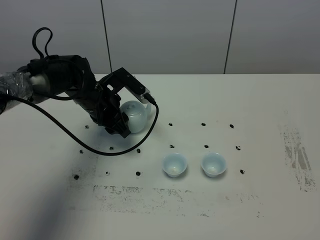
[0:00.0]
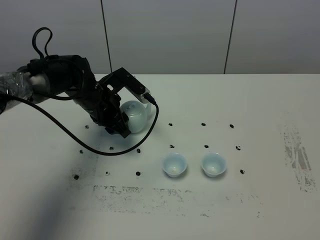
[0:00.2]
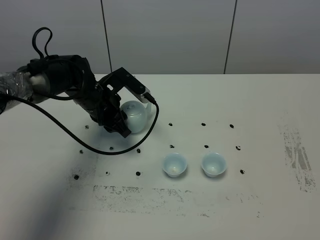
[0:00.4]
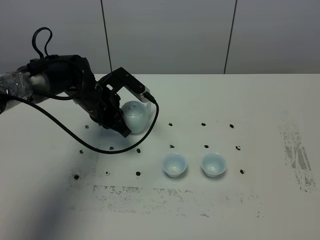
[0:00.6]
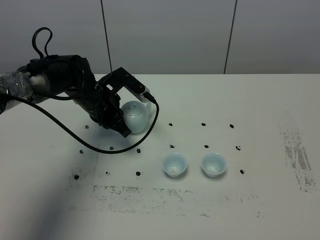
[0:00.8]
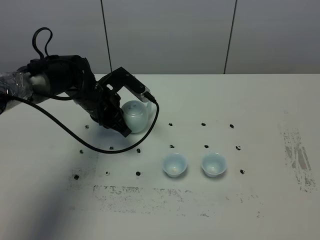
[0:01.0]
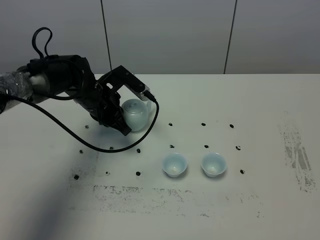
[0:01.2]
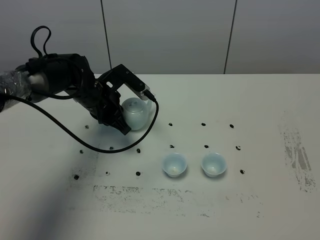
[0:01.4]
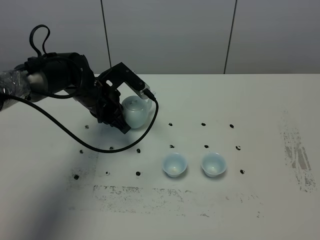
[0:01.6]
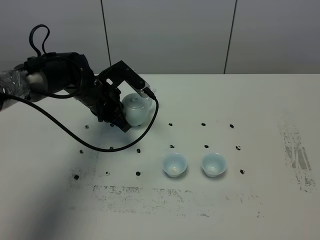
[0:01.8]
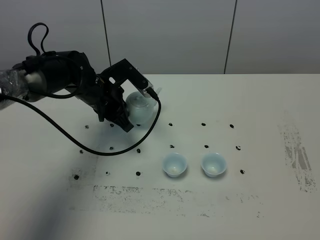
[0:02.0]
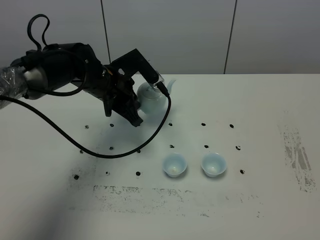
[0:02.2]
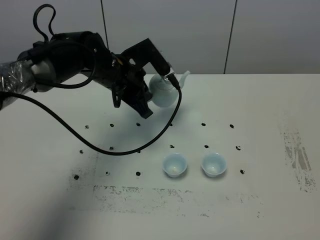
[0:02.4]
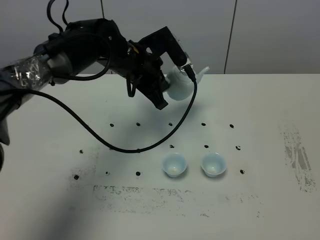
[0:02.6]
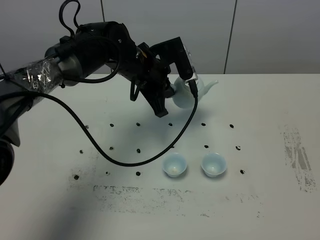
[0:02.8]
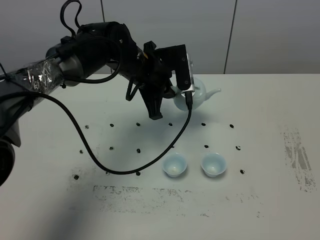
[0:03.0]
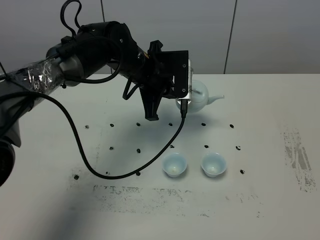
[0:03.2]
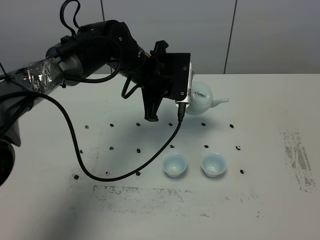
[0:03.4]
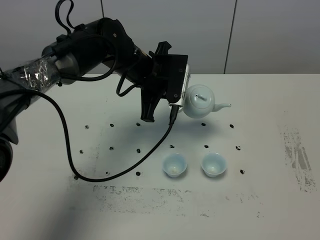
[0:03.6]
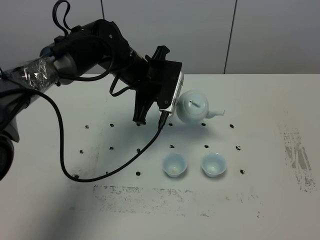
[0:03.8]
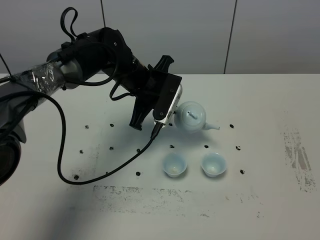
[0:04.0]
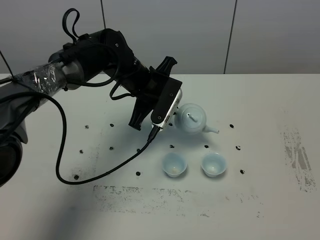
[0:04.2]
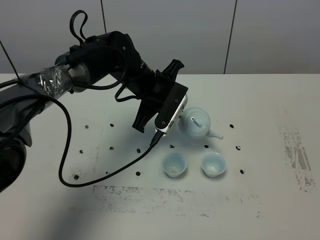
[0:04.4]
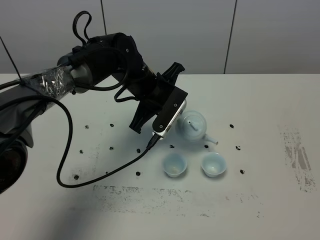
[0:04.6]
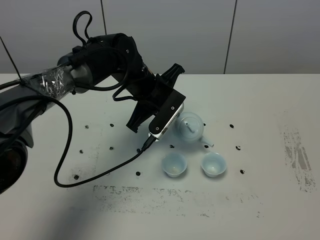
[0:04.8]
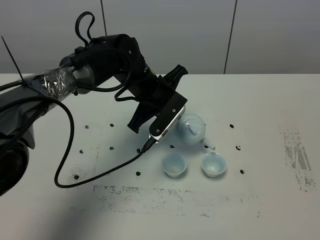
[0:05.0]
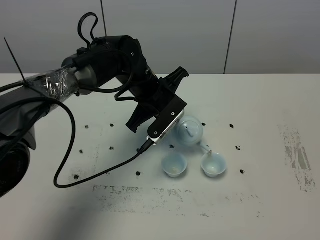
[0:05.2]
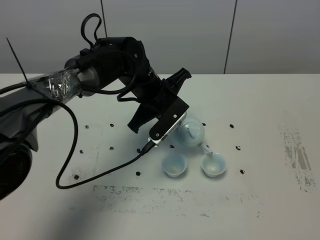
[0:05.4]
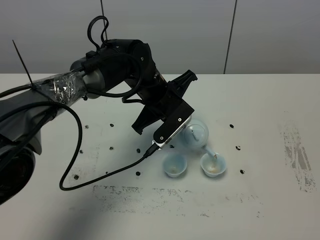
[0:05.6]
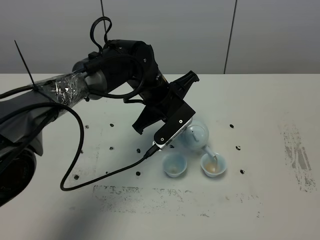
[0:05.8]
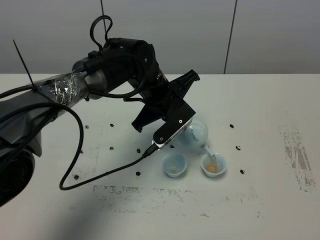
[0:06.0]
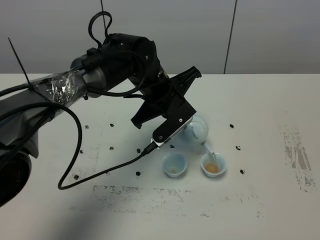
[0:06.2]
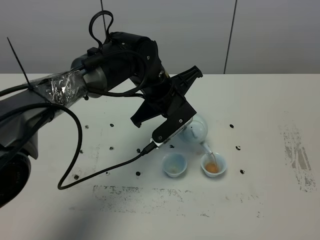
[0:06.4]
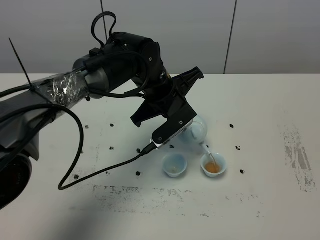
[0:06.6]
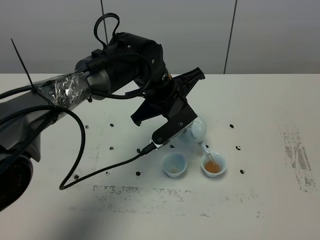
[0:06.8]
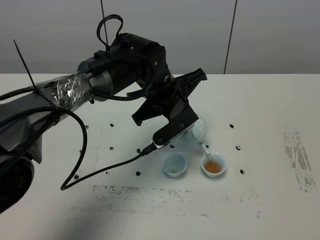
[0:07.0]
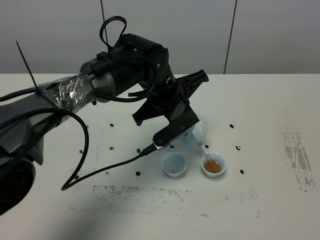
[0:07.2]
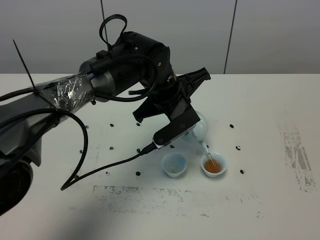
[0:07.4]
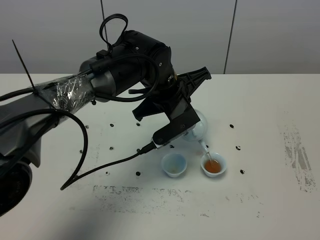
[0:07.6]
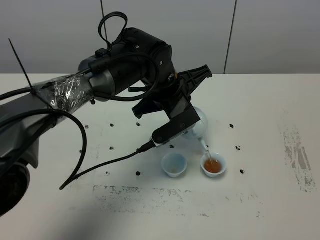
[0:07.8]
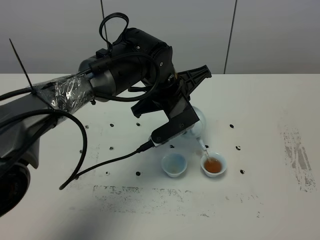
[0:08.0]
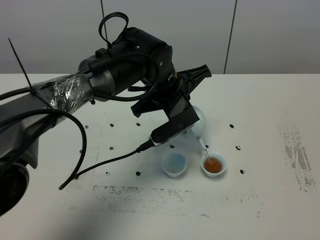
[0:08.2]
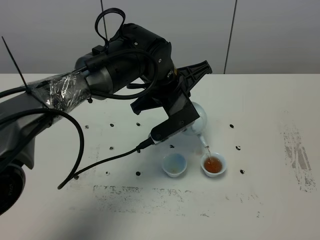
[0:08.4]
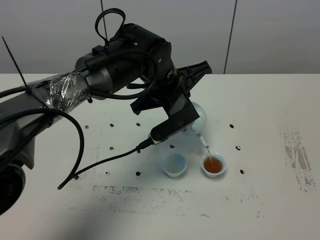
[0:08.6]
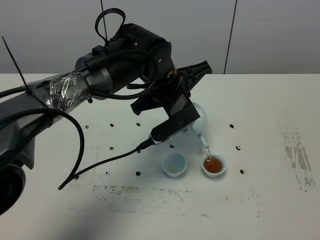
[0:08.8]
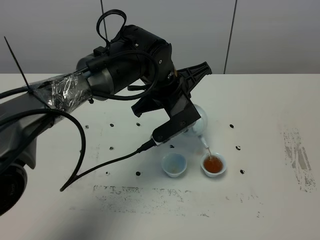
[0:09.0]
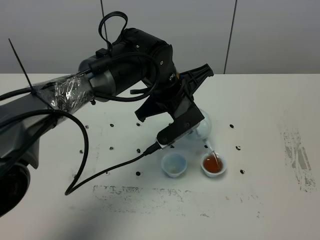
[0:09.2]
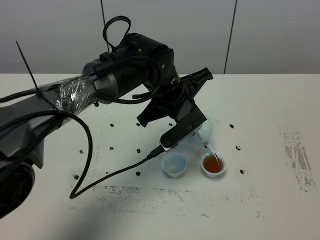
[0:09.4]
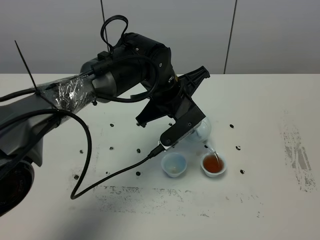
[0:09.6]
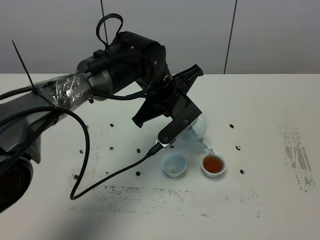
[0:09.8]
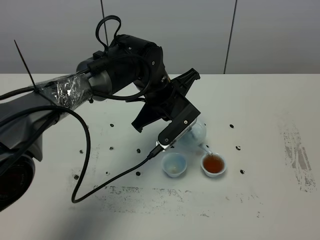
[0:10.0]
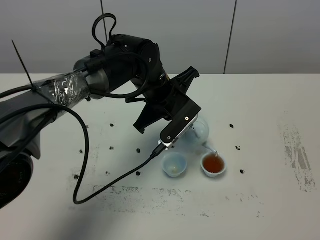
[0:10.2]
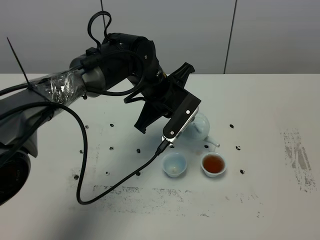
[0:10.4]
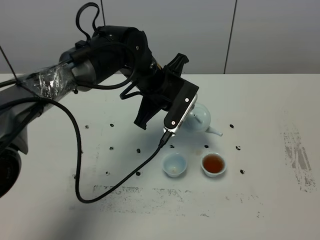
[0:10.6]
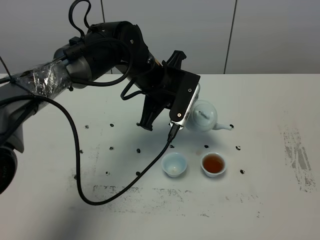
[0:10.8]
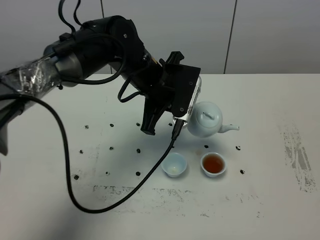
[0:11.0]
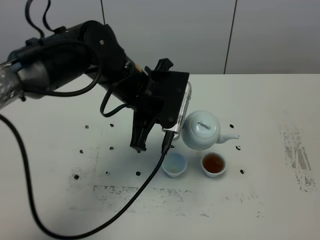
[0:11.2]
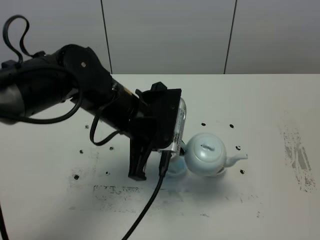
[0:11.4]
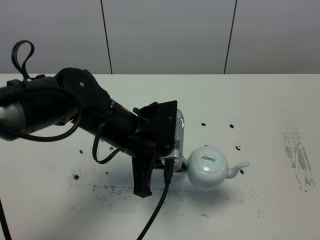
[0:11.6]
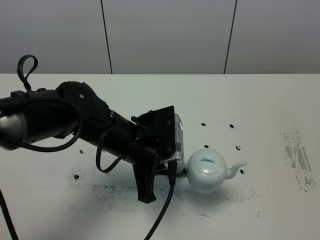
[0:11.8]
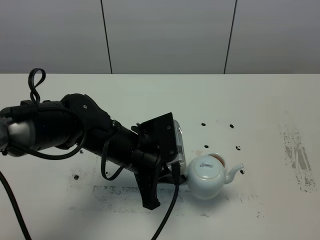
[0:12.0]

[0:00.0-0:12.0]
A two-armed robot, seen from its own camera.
Task of the whole recording: grasp the blue porcelain teapot and pour the tea into the two blue porcelain teacups one by one, put the blue porcelain teapot back in its original place.
0:00.0 to 0:01.6: The left gripper closes its fingers.
0:01.6 to 0:03.0: The left gripper heads to the right and upward, covering about 10 cm.
0:06.0 to 0:07.6: The grippers make only small movements.
0:07.6 to 0:09.0: Both grippers stay about where they are.
0:10.4 to 0:12.0: The left gripper shifts about 15 cm backward.

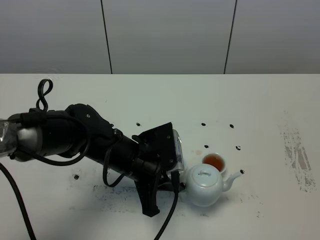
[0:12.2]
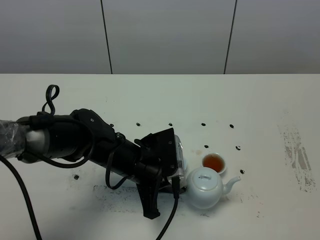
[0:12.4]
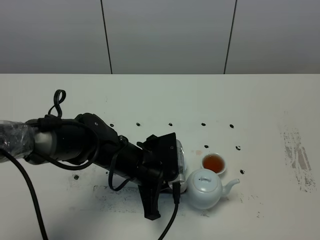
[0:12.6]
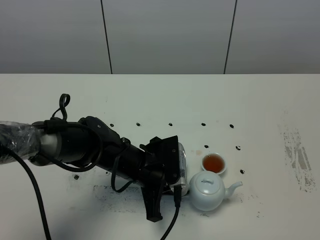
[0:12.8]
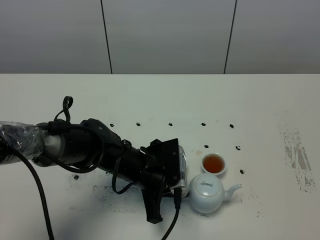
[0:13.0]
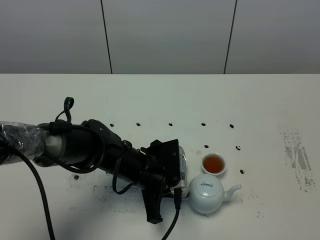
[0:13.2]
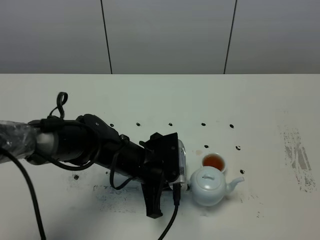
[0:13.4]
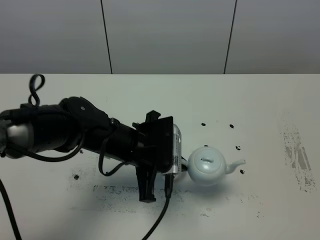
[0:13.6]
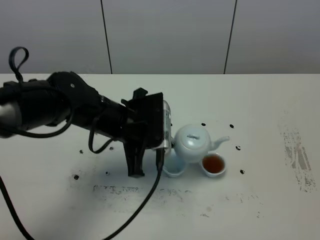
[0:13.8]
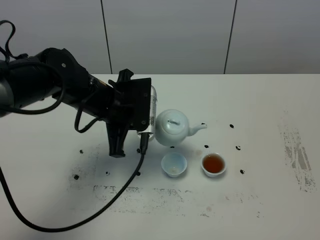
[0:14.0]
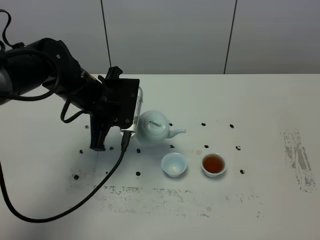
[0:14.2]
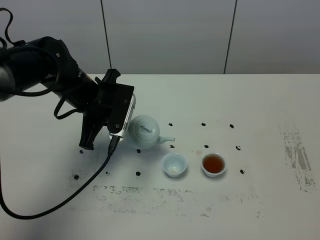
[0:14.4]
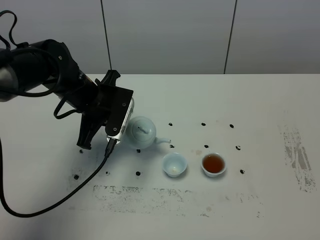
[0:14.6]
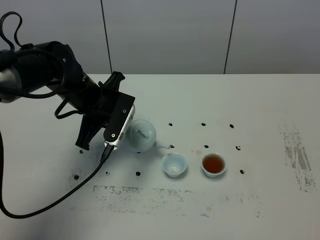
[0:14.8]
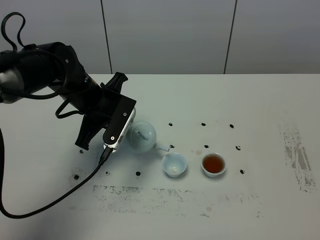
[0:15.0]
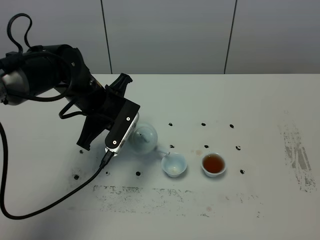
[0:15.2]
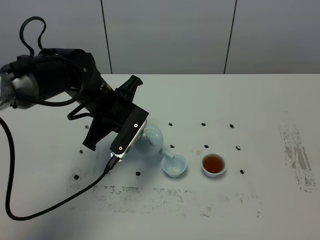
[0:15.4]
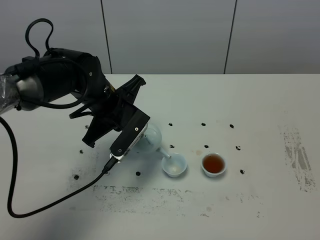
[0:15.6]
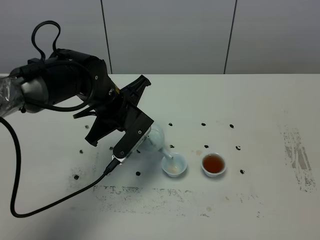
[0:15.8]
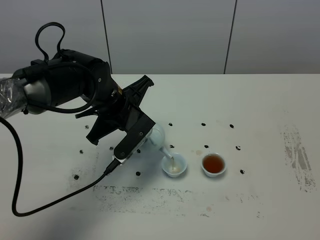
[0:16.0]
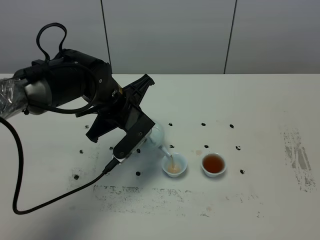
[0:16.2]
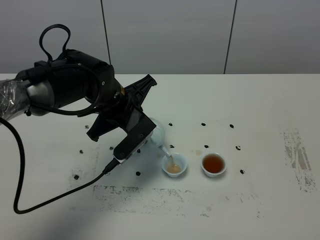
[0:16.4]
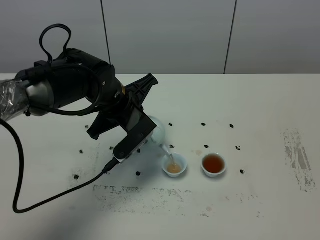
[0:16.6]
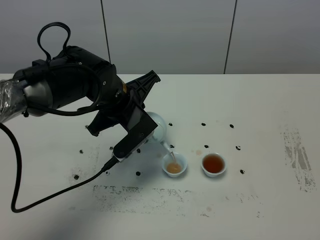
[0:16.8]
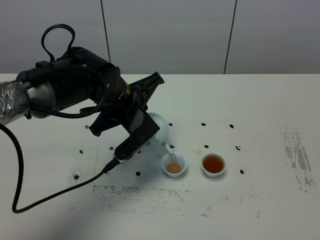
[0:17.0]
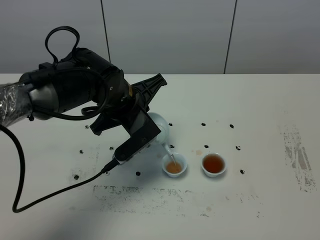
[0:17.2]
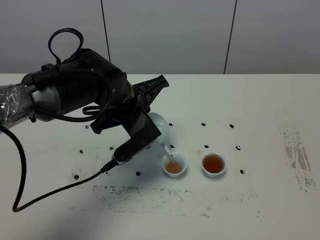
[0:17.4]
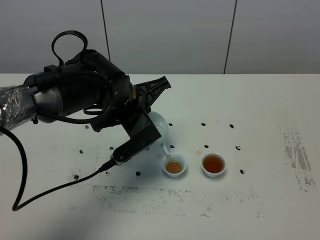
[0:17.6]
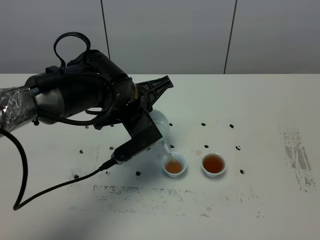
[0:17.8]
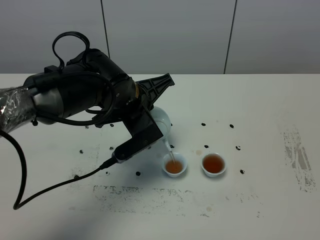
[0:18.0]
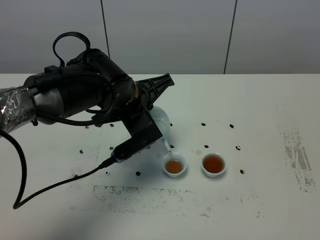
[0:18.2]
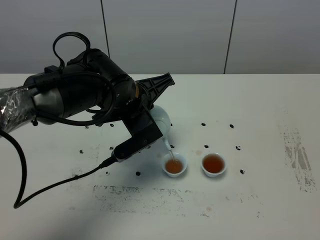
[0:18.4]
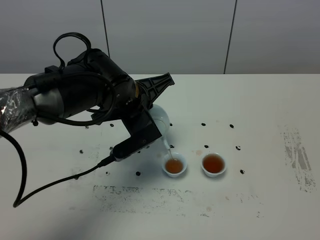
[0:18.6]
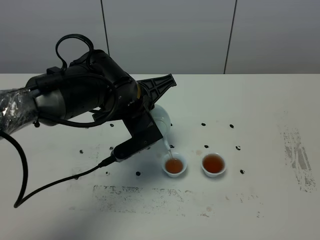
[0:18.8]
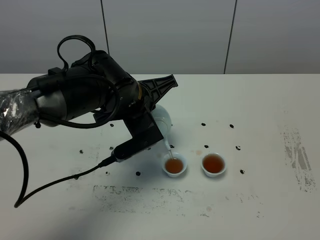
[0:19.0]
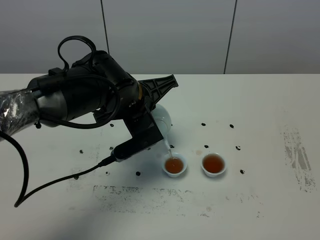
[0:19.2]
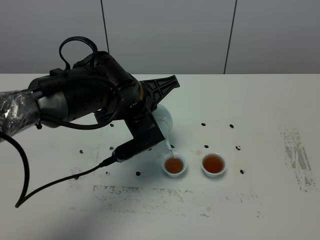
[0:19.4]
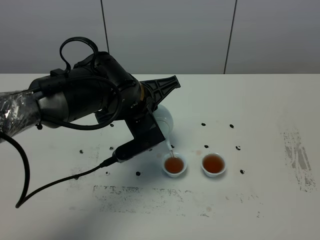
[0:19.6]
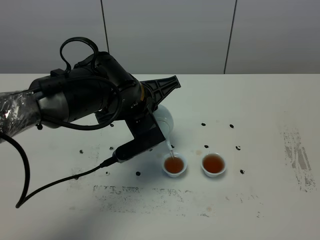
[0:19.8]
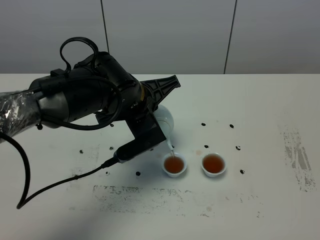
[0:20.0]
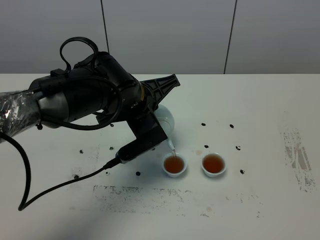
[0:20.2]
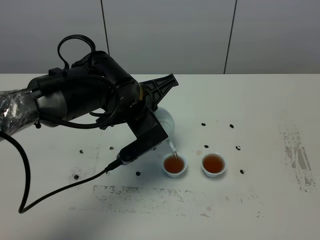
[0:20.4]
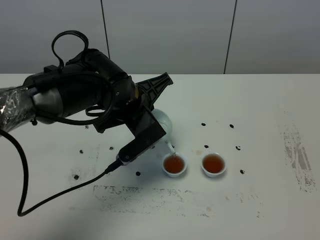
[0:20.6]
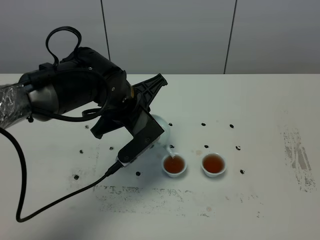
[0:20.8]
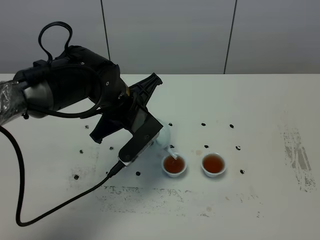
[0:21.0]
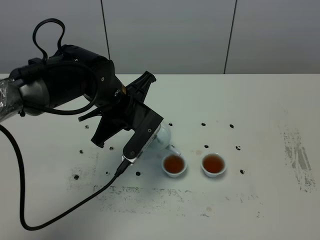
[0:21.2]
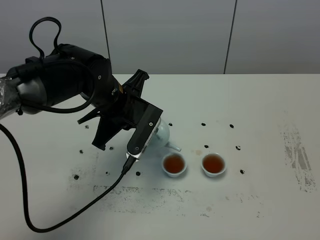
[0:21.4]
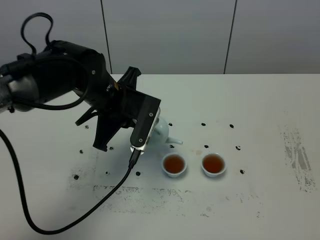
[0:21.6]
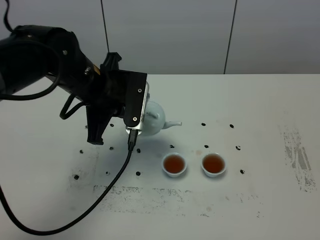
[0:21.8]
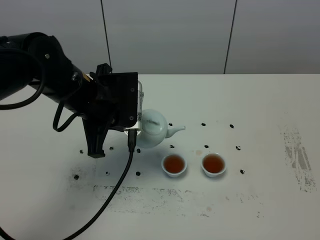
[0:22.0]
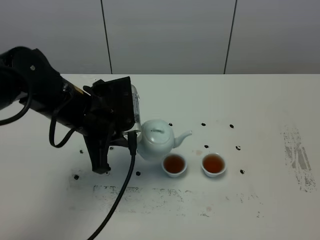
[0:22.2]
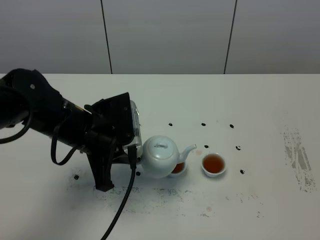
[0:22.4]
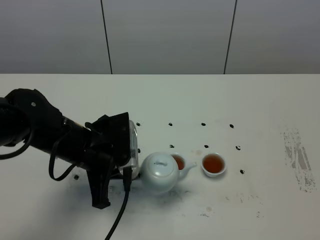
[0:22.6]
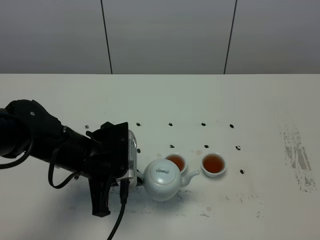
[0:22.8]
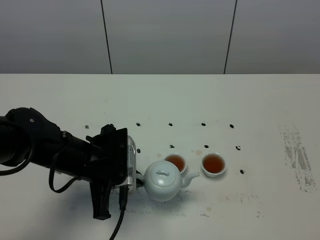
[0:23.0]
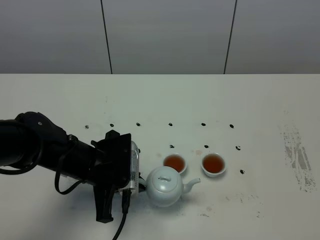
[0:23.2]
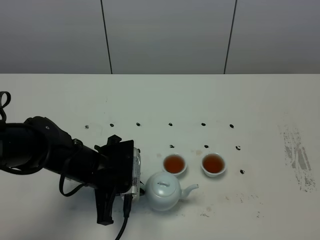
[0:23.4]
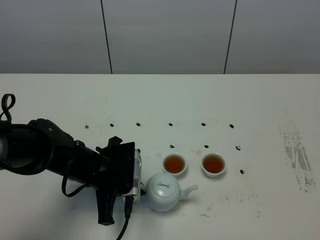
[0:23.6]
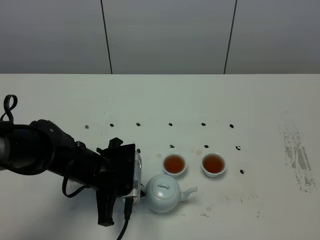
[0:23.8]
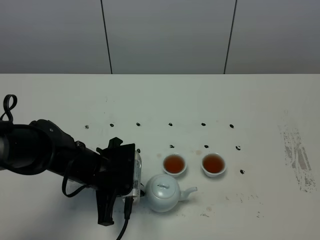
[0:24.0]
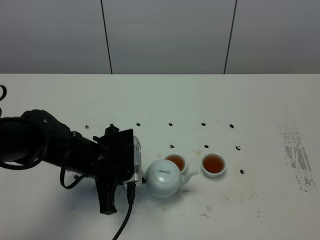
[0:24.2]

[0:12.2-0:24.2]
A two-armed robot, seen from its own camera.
Task of the whole recording: grasp the blue porcelain teapot and pour the tea into the two blue porcelain teacups one by one, put the blue porcelain teapot back in its original place.
Step, 0:12.2 to 0:21.2: Pour tea into the teacup with the left gripper.
0:12.2 to 0:13.8: The left gripper goes about 5 cm upward.
0:13.8 to 0:15.2: The left gripper moves forward, about 5 cm.
0:16.6 to 0:18.2: There are only small adjustments of the grippers.
0:18.2 to 0:19.8: Neither gripper changes place.
0:21.2 to 0:22.6: The left gripper travels backward and to the left by approximately 10 cm.
